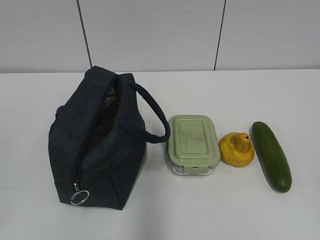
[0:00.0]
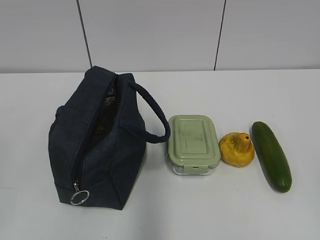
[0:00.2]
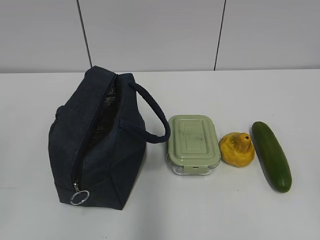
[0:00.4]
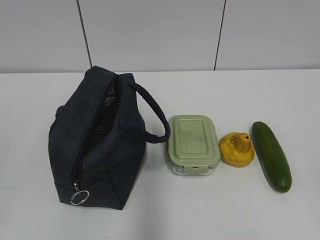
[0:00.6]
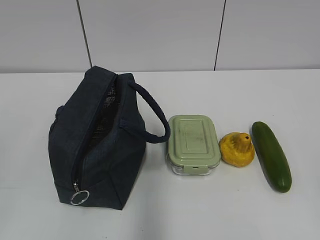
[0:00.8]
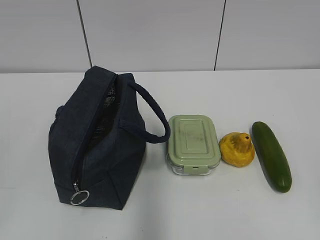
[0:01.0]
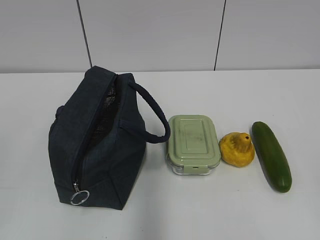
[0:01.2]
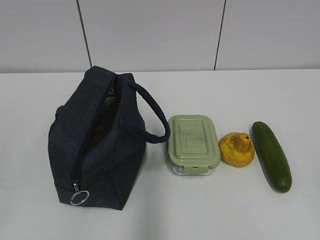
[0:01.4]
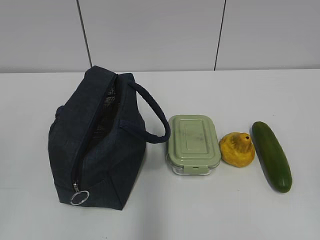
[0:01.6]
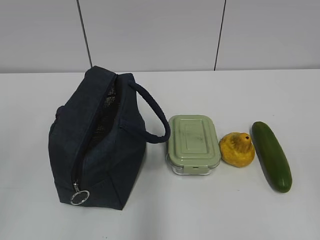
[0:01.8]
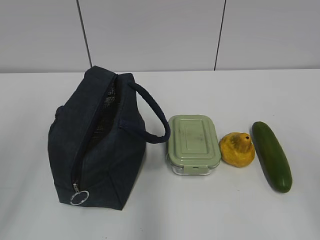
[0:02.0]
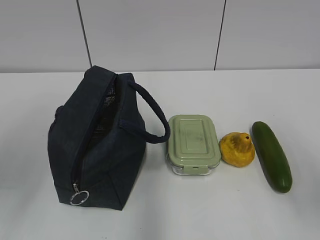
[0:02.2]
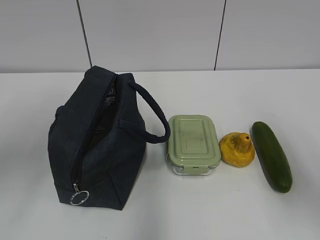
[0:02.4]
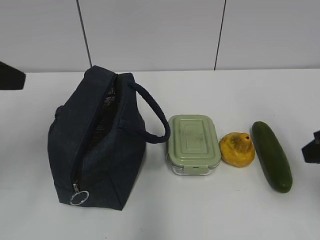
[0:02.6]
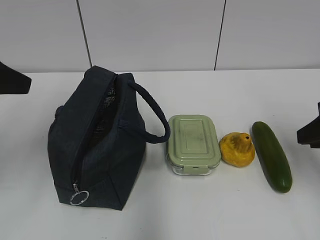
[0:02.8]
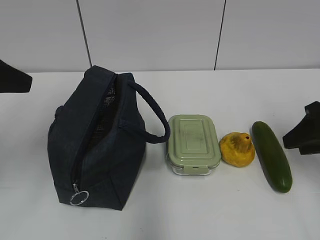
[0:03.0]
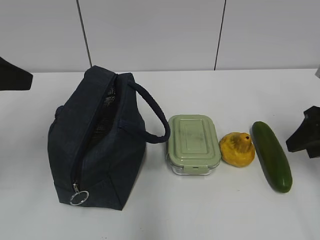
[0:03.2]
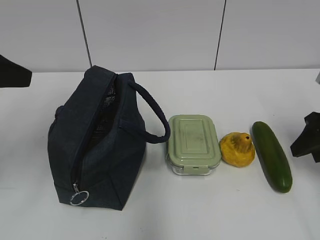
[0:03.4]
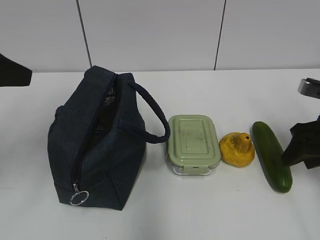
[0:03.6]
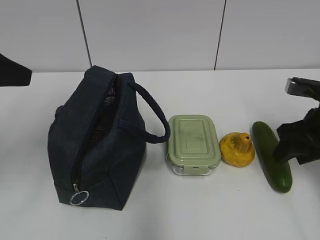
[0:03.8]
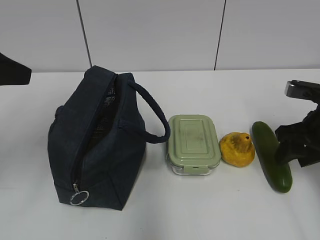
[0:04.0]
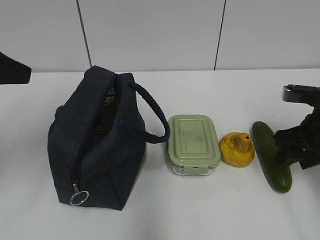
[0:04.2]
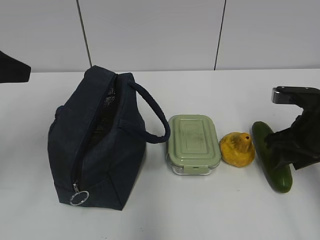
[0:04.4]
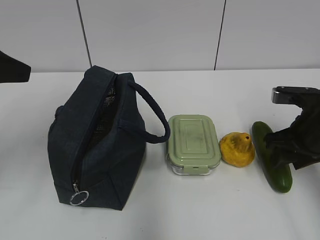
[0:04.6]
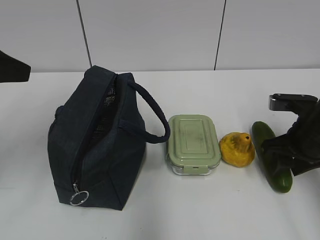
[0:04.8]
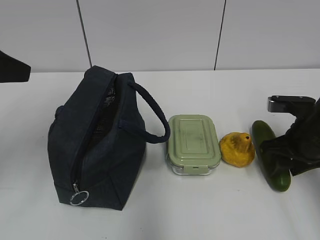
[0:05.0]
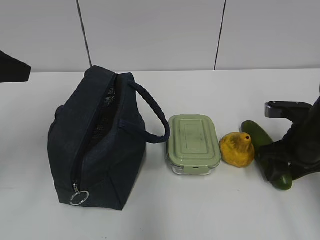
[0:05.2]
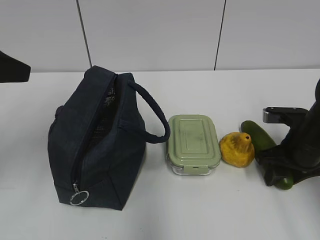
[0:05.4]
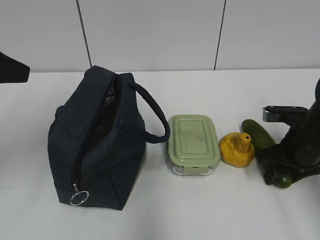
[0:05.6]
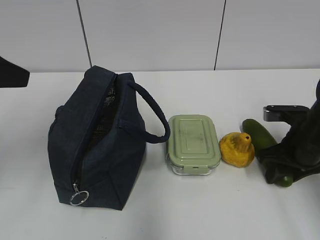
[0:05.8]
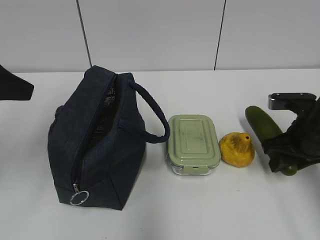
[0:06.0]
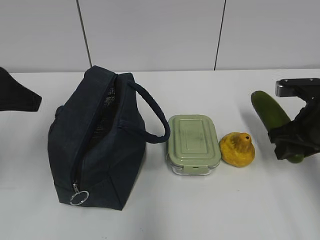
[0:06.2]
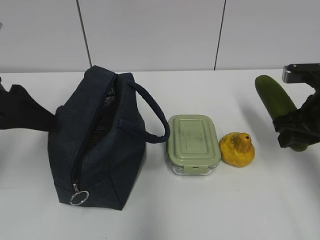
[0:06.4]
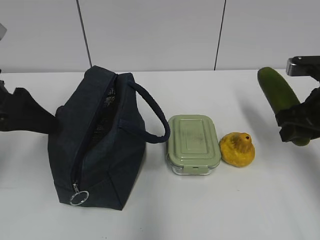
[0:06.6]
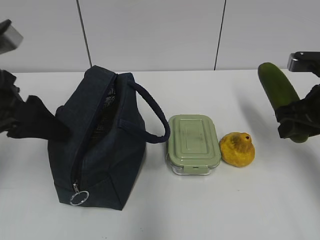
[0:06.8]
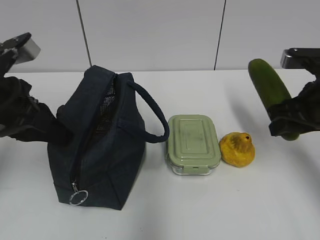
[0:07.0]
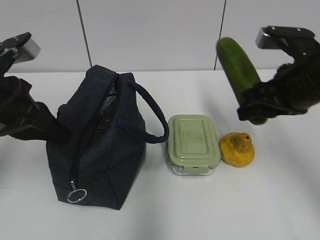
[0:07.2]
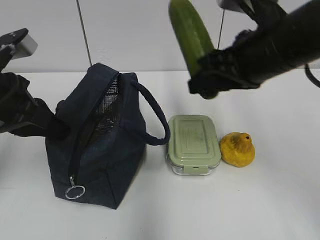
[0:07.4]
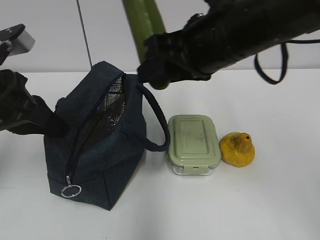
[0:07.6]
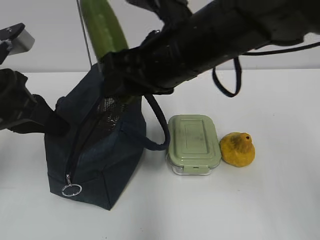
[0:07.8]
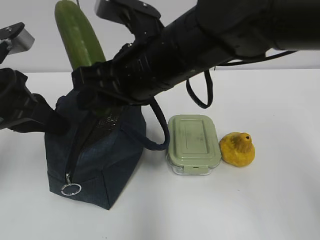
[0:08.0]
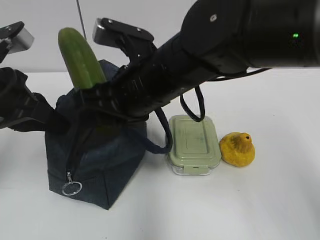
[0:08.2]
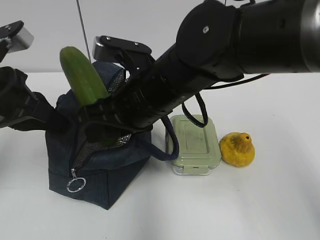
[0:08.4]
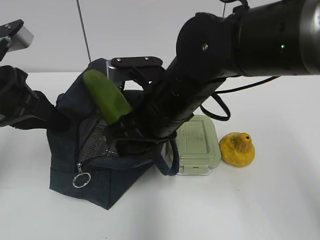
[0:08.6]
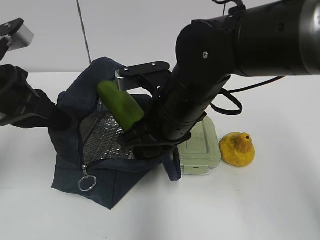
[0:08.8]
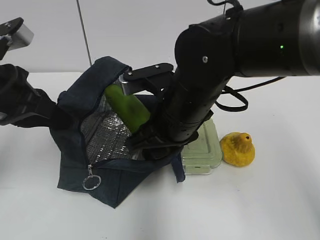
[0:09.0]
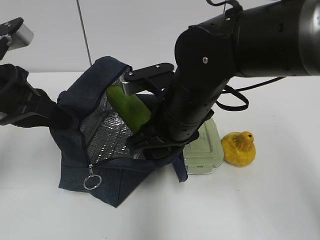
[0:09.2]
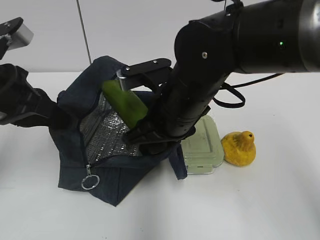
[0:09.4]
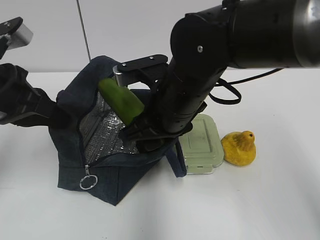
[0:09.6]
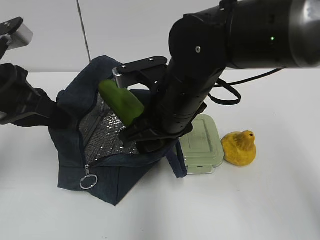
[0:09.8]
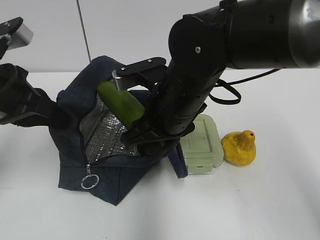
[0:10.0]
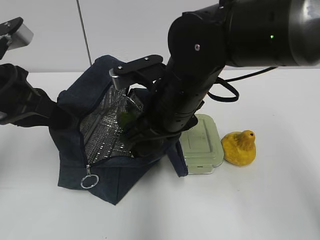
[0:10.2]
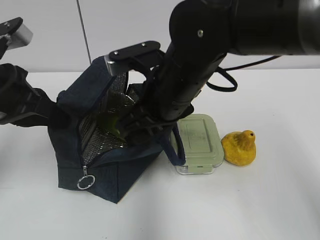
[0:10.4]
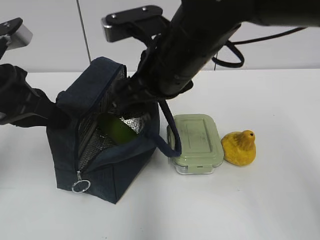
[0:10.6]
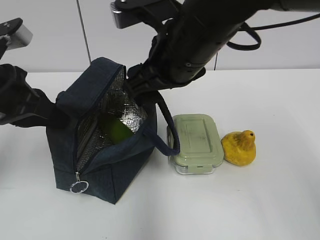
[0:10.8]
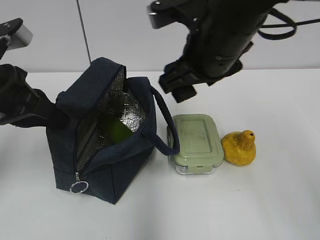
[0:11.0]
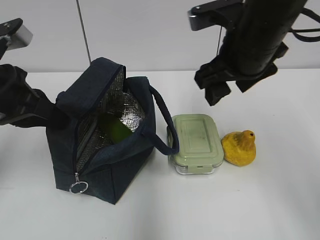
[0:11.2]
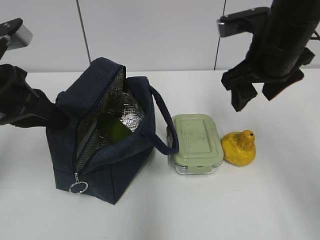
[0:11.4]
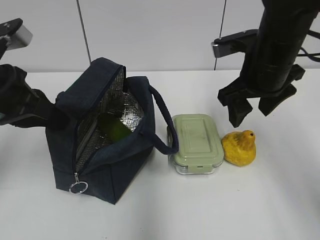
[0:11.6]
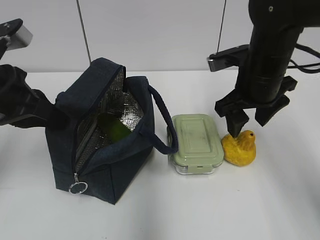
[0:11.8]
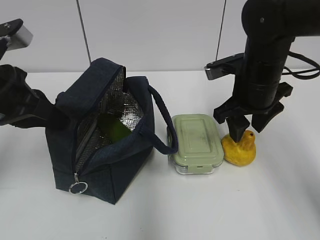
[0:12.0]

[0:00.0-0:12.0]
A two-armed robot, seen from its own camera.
Step, 0.0 to 5.6 s: Grab the cucumber with your right hand.
Step, 5.8 to 8.0 s: Grab the lunch bag with your left hand.
Step, 8.2 to 10.4 s: Place it into the bag with your right hand.
1.6 to 3.0 s: Both grippers travel together forward, approximately 25 cm.
3.0 to 4.4 s: The right gripper changes place by about 5 cm.
4.4 to 6.0 s: The grippers move only a little.
6.0 to 7.6 s: The right gripper travels to the left and upward by roughly 25 cm. Meanwhile the left gripper heads downward, covering roughly 5 cm, and closes its fingers.
7.6 to 9.0 s: The right gripper heads downward, covering some 10 cm.
9.0 to 10.4 s: The right gripper opens up.
10.4 to 12.0 s: The right gripper heads to the right and forward, covering approximately 15 cm.

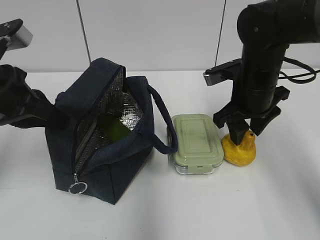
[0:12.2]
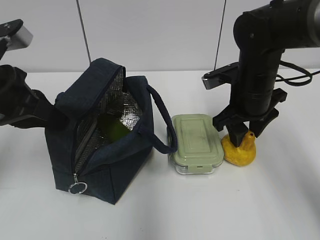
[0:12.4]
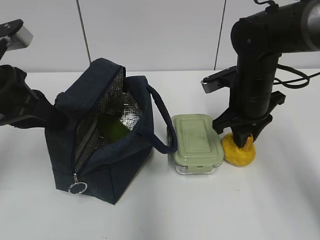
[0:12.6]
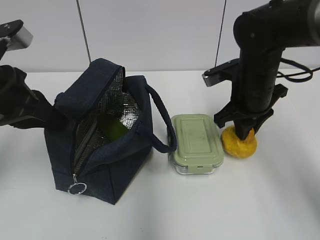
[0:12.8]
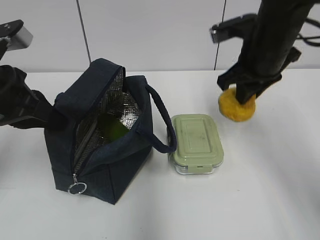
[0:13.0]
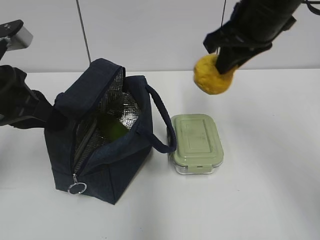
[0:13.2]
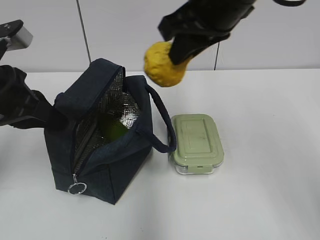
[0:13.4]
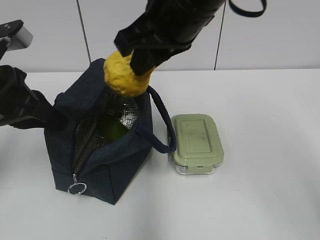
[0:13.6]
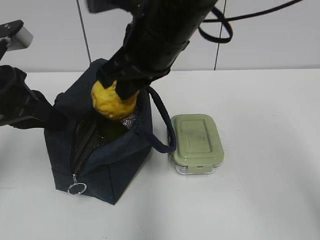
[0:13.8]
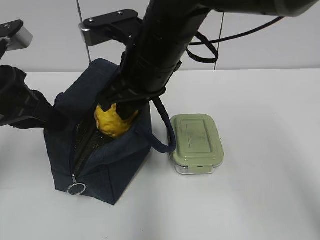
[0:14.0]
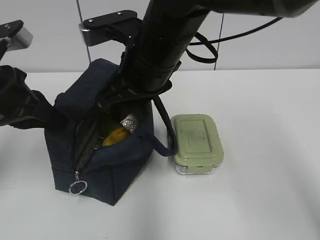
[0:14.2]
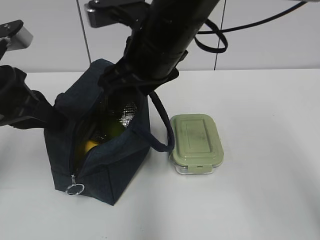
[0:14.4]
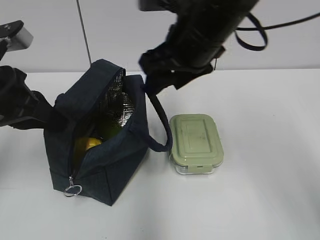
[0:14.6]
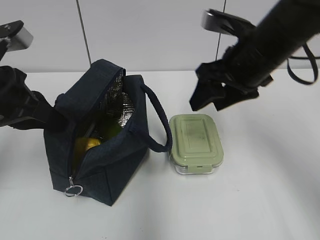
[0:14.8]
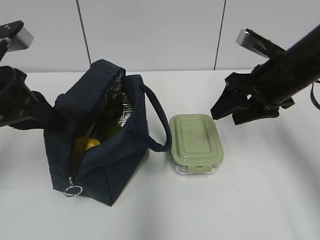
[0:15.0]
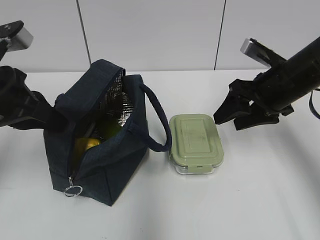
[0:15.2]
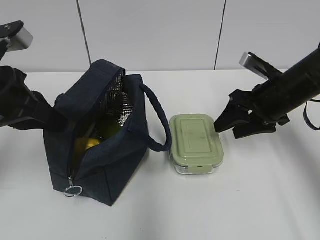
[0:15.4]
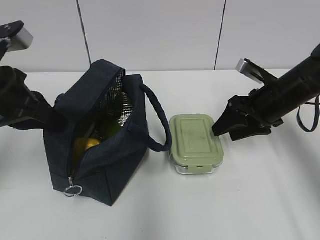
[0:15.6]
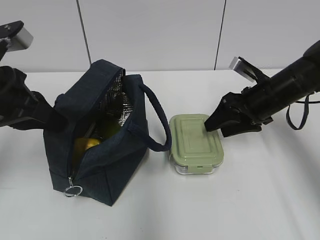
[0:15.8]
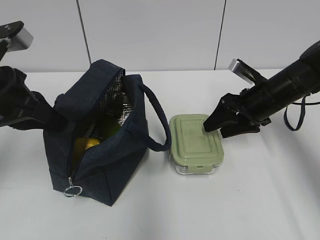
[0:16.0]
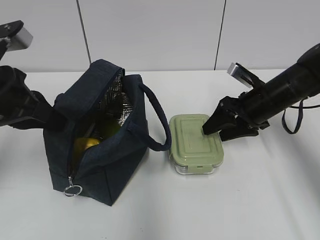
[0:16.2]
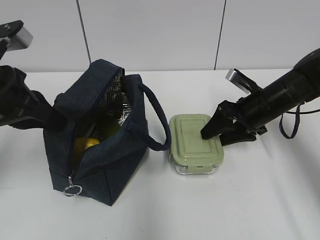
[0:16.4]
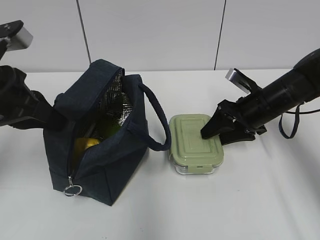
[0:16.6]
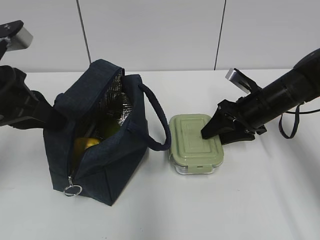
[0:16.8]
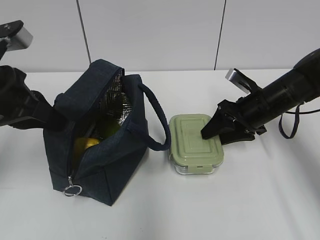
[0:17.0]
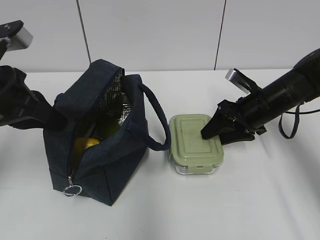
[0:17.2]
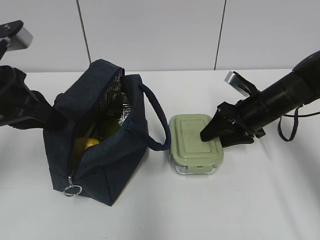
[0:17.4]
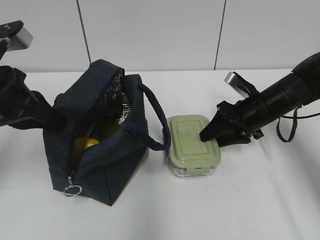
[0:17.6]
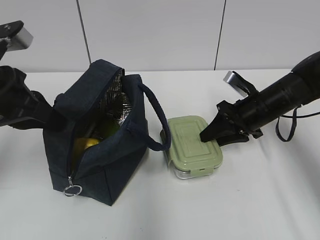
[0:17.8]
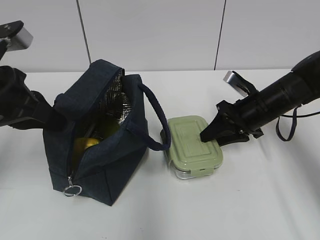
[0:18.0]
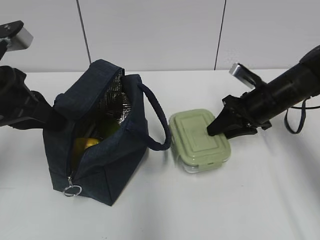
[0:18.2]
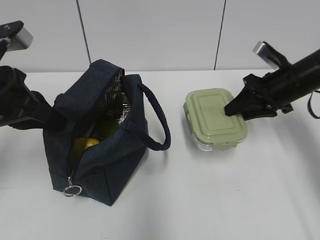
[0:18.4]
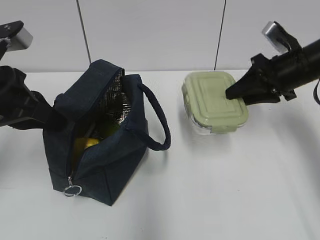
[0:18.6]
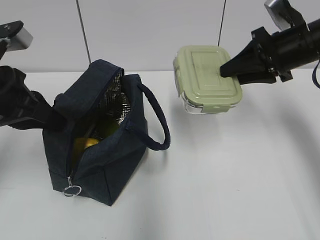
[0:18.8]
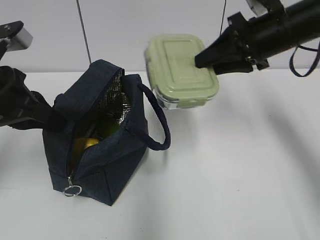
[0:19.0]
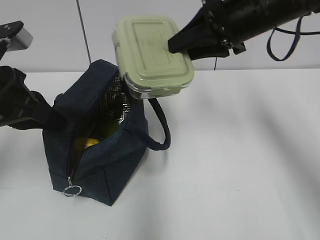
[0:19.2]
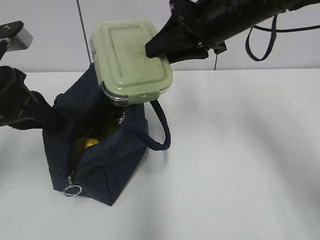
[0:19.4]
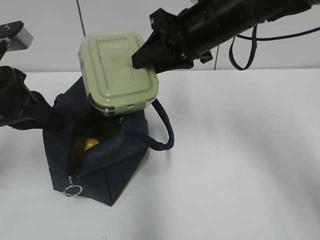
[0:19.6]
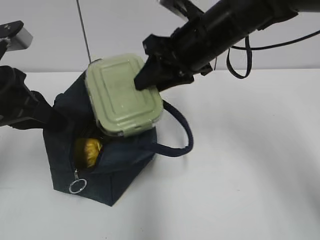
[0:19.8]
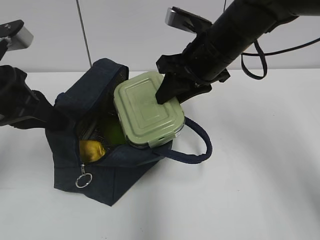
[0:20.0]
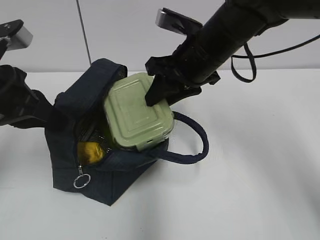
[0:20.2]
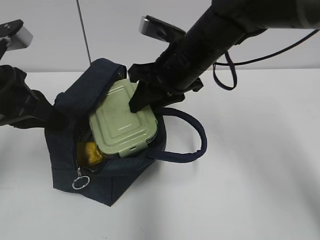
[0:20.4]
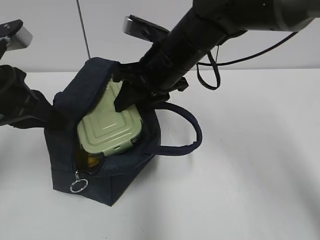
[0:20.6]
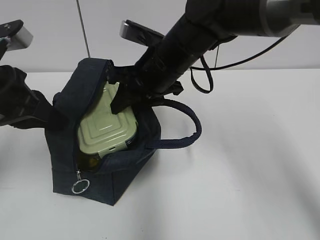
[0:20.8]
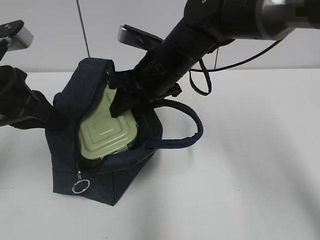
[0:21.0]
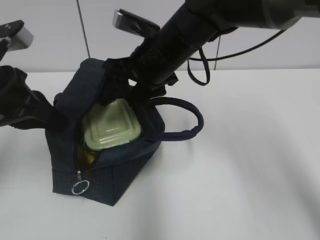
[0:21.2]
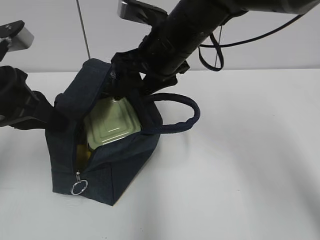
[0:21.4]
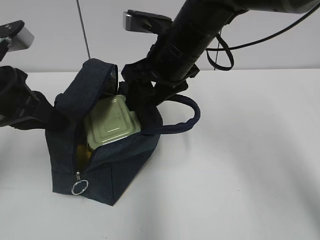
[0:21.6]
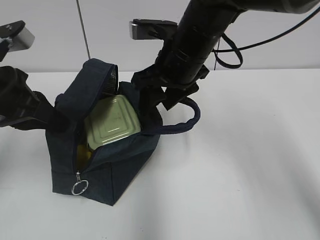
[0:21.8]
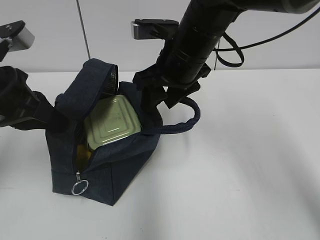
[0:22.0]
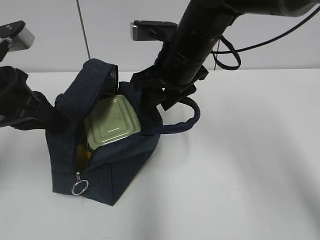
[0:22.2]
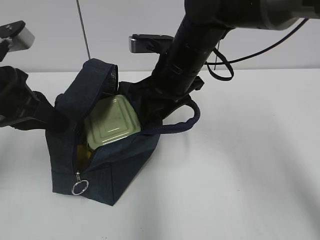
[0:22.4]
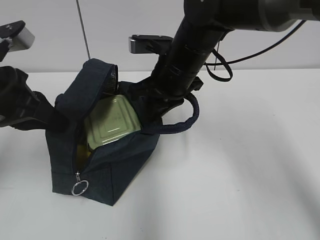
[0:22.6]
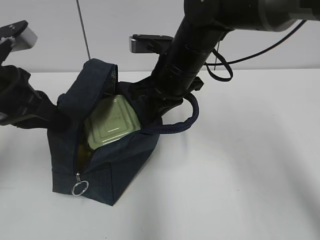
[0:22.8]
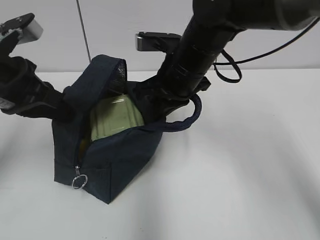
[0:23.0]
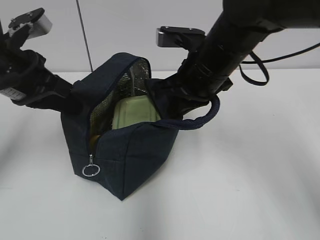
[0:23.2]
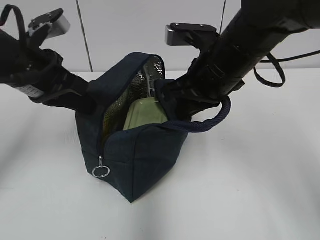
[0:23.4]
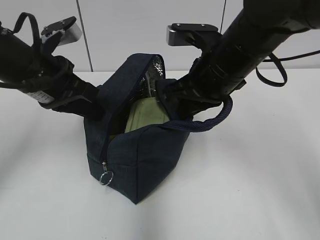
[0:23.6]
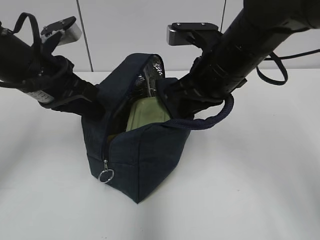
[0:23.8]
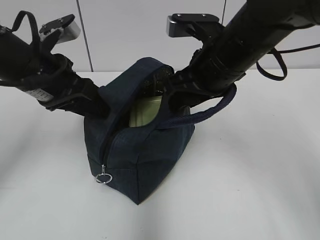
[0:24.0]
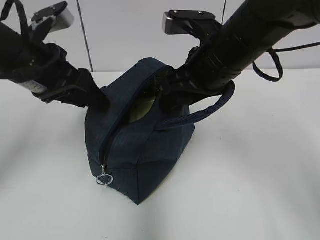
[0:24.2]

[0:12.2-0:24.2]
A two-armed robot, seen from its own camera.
Step, 12.8 to 14.2 s: Place it into the bag with your right hand.
Step, 14.6 to 17.8 s: Grab the lunch box with your right hand.
Step, 21.4 to 22.8 s: Grab the lunch bag with your right hand.
12.2 to 13.8 s: The right gripper moves to the left and upward, approximately 20 cm, and closes its fingers.
13.8 to 15.2 s: The right gripper is displaced to the right and downward by some 20 cm, and opens its fingers.
15.2 to 16.6 s: The right gripper shifts about 10 cm downward.
16.6 to 18.2 s: The right gripper closes.
18.2 to 19.8 s: The right gripper moves to the left and upward, roughly 20 cm.
19.8 to 21.2 s: The right gripper moves to the left, roughly 5 cm, and opens its fingers.
21.2 to 22.6 s: The right gripper closes up.
22.6 to 24.2 s: The right gripper heads backward, covering about 5 cm, and opens its fingers. The left gripper ends up roughly 5 cm from where it was, and opens its fingers.
